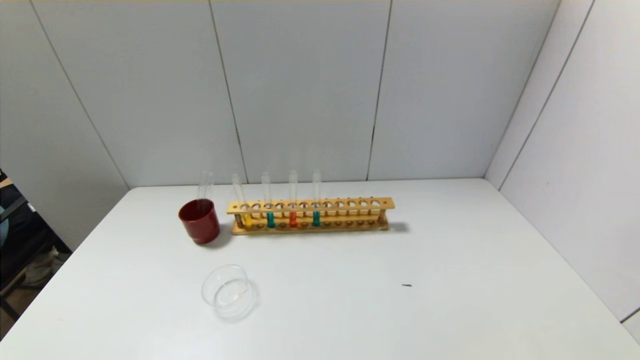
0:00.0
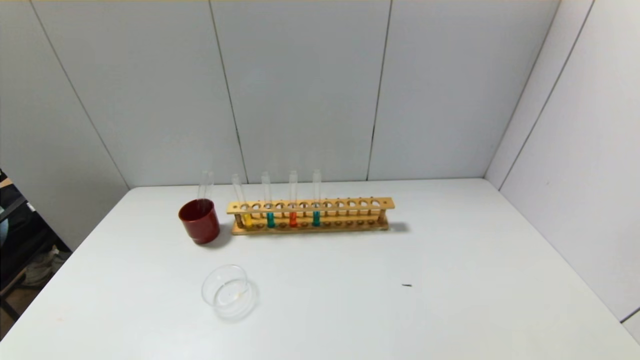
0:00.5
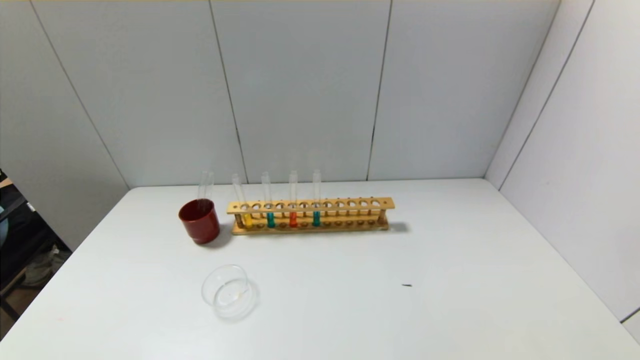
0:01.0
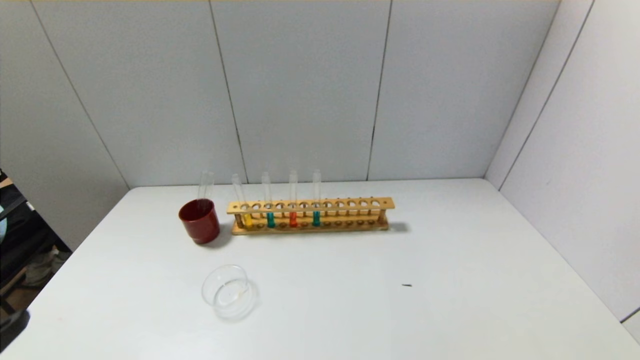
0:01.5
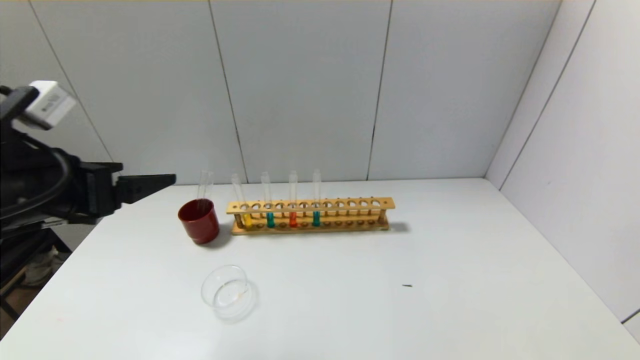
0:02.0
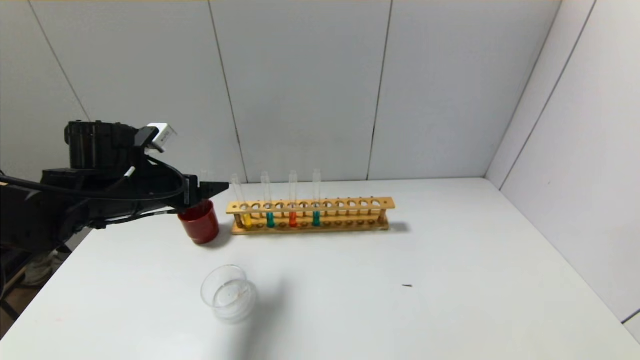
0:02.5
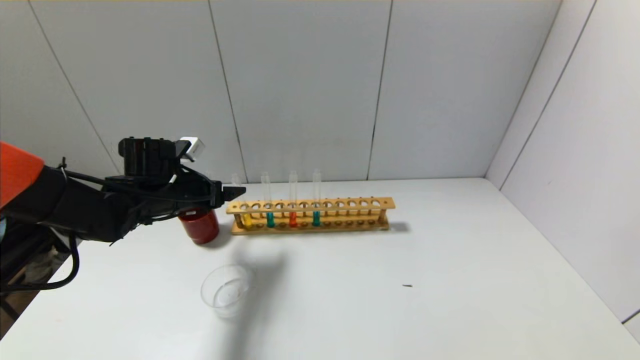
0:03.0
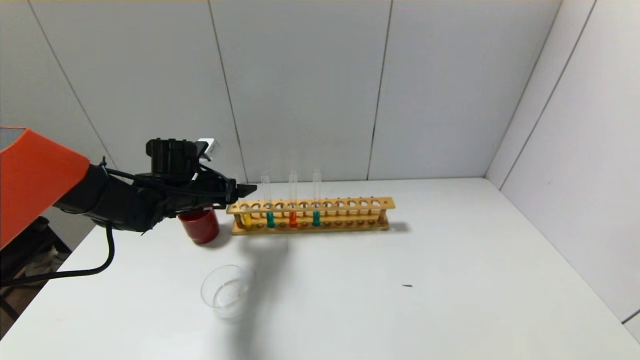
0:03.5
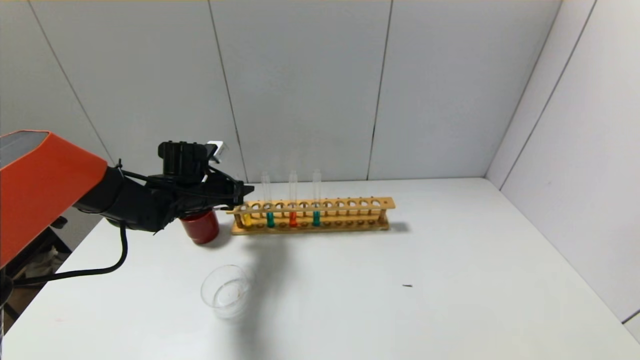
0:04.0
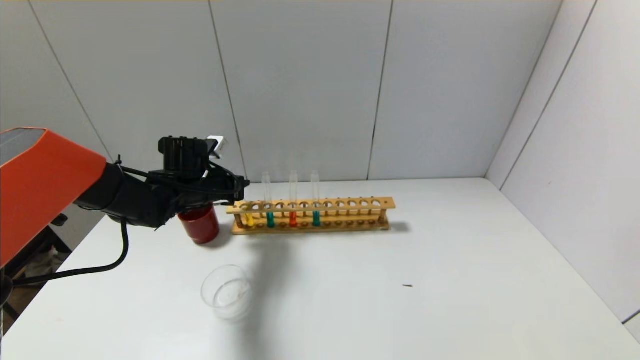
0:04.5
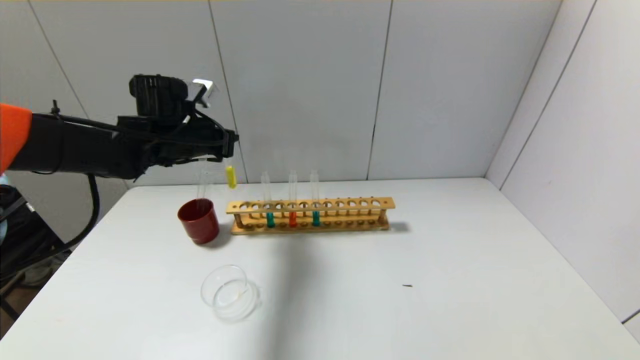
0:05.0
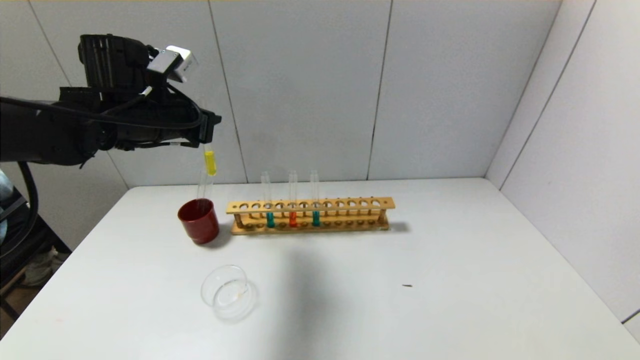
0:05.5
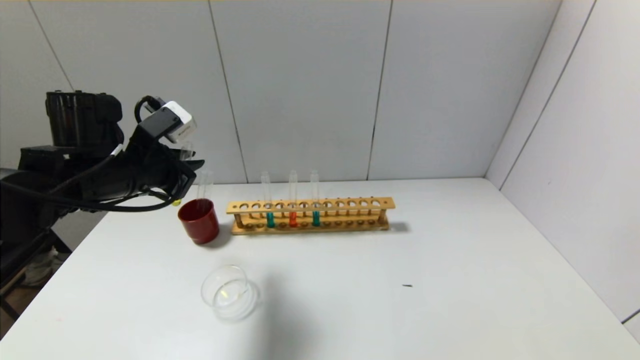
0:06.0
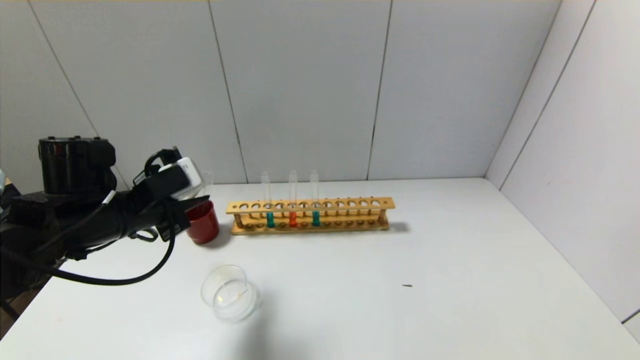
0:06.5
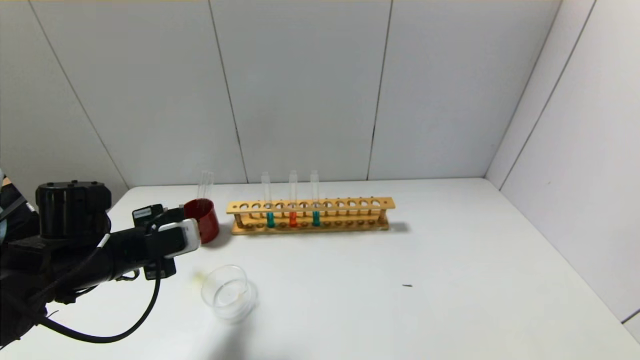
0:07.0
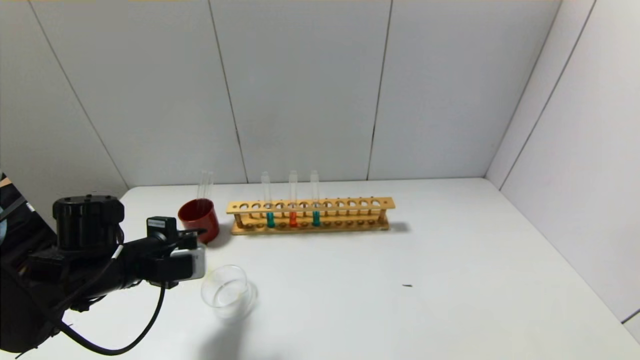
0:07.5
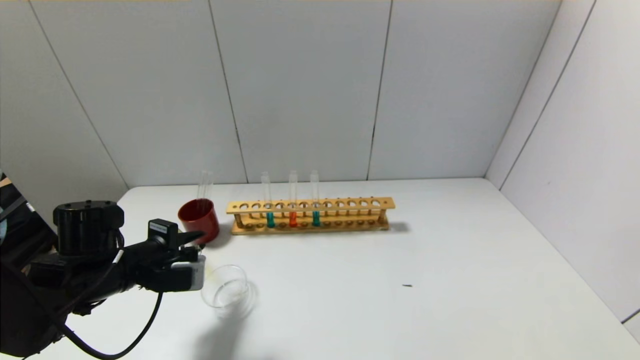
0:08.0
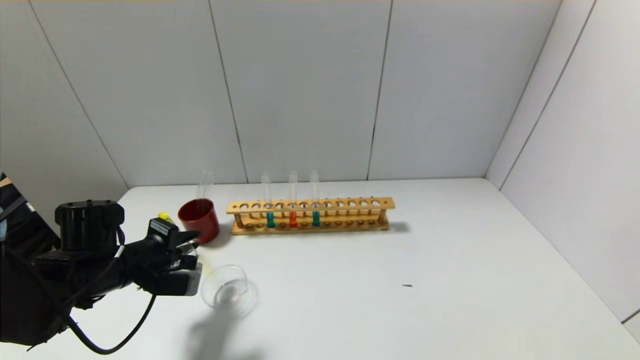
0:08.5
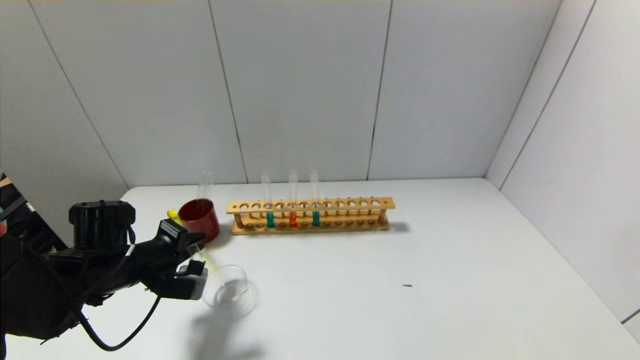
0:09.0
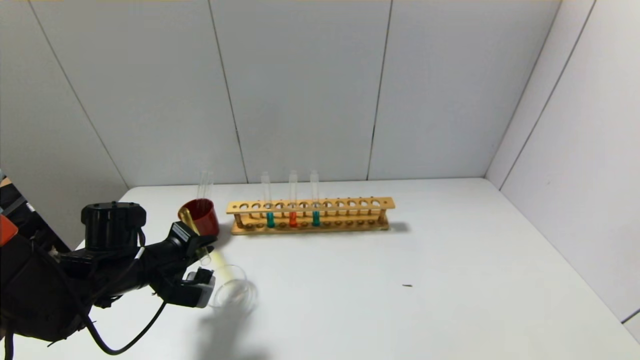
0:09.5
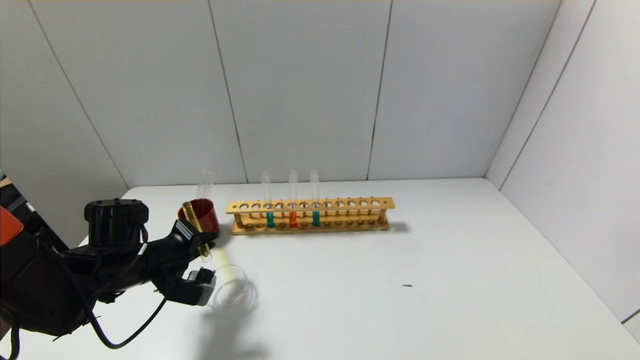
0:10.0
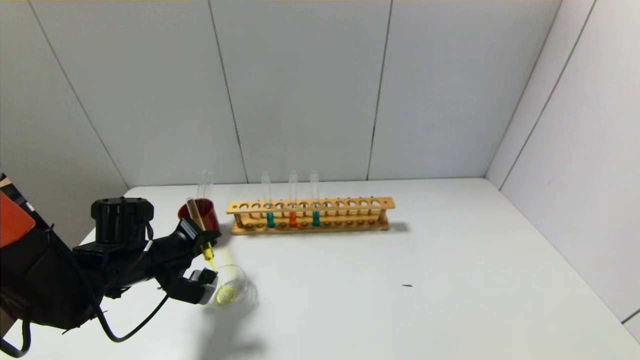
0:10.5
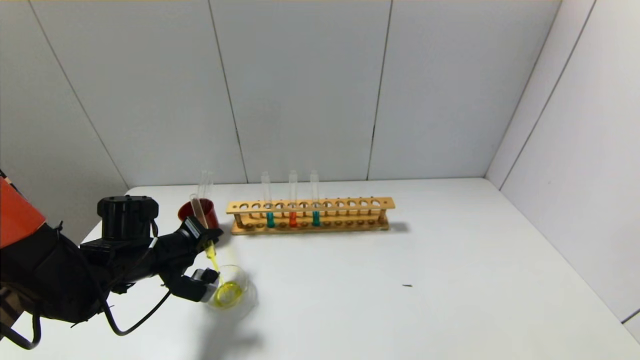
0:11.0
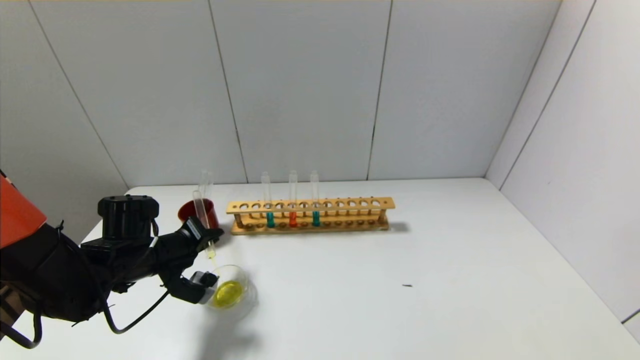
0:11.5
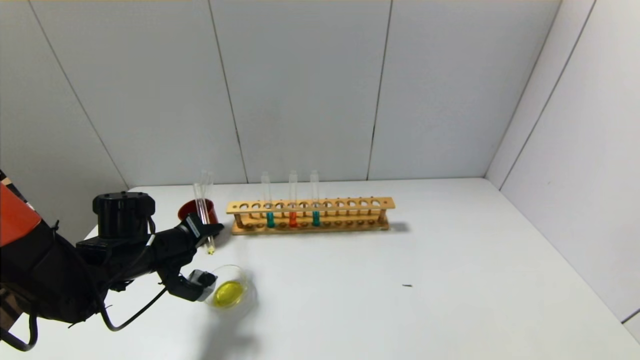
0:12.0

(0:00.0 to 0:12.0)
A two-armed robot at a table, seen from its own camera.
Step, 0:00.0 - 0:04.0: Grasp the yellow reagent with the left gripper.
0:00.0 - 0:02.0: The left gripper travels forward and upward by about 30 cm.
0:02.0 - 0:04.0: The left gripper travels forward and downward by some 25 cm, and closes.
0:04.0 - 0:06.0: The left gripper shifts about 15 cm backward and upward.
0:06.0 - 0:08.0: The left gripper travels downward by roughly 10 cm.
0:10.0 - 0:12.0: The grippers make only small movements.

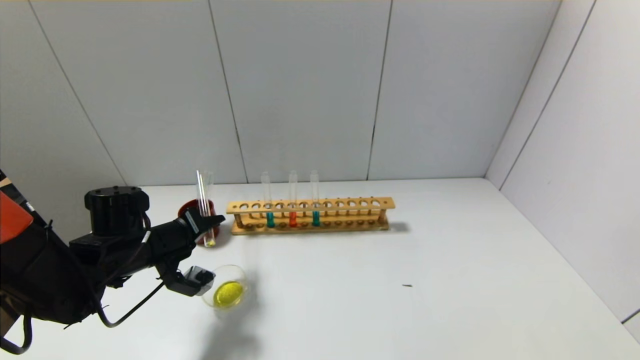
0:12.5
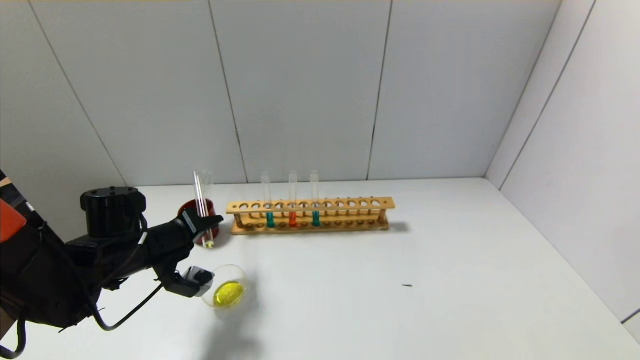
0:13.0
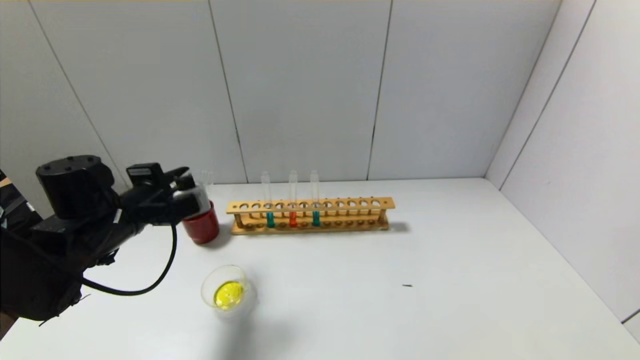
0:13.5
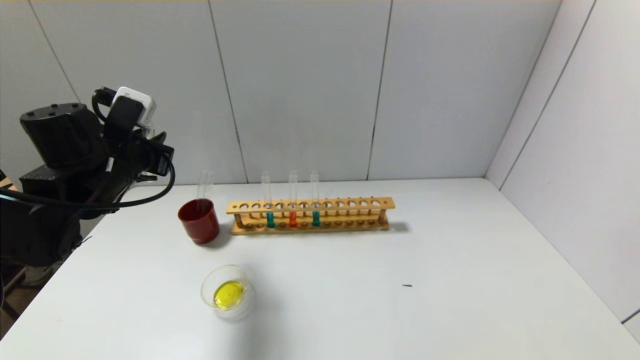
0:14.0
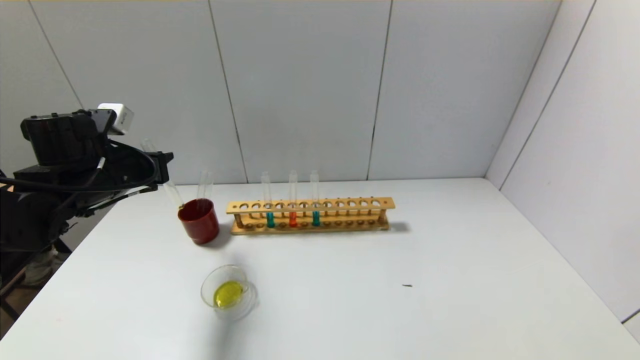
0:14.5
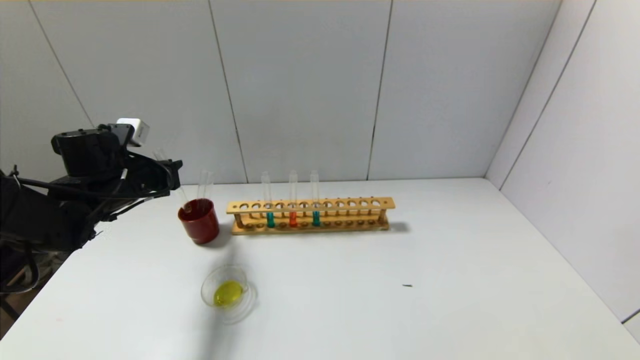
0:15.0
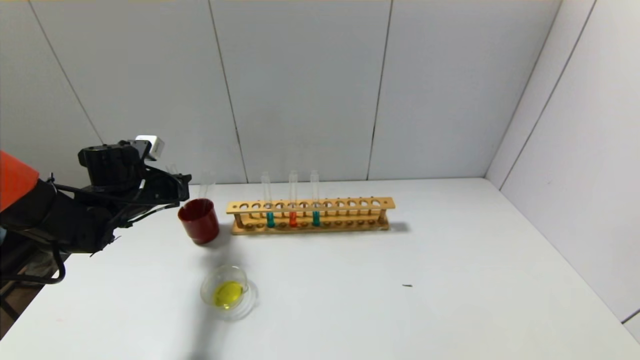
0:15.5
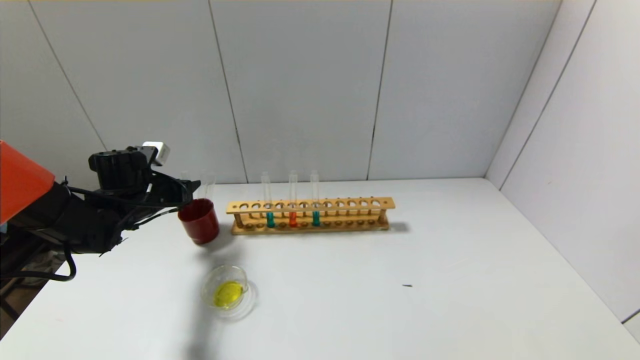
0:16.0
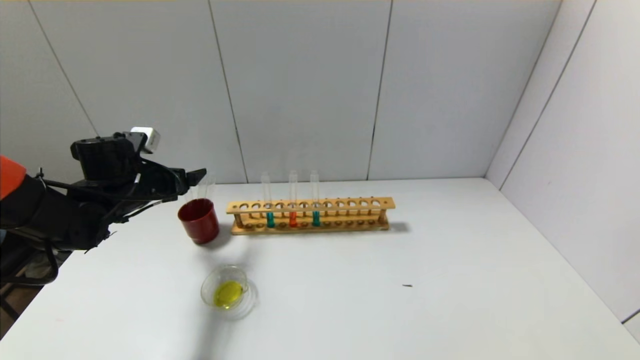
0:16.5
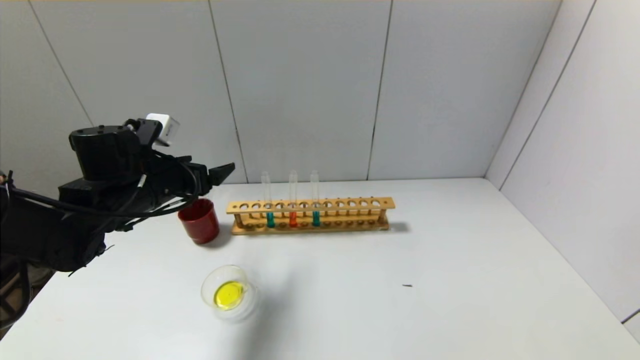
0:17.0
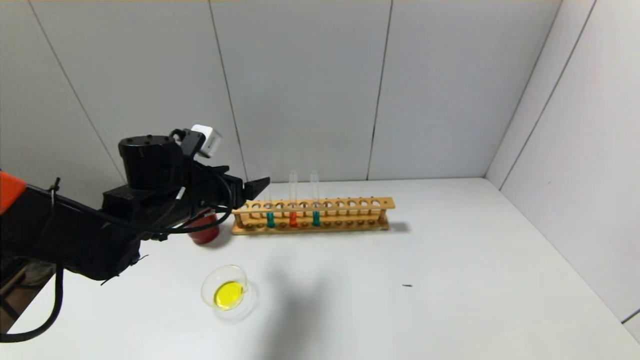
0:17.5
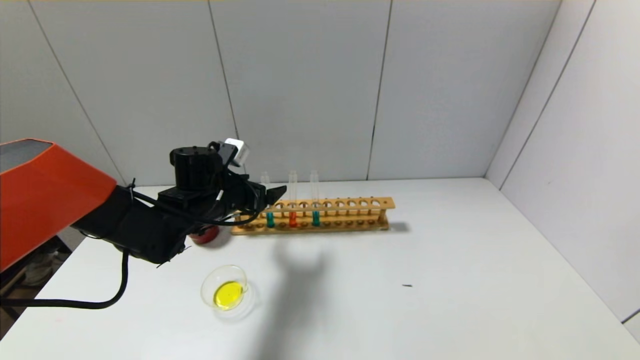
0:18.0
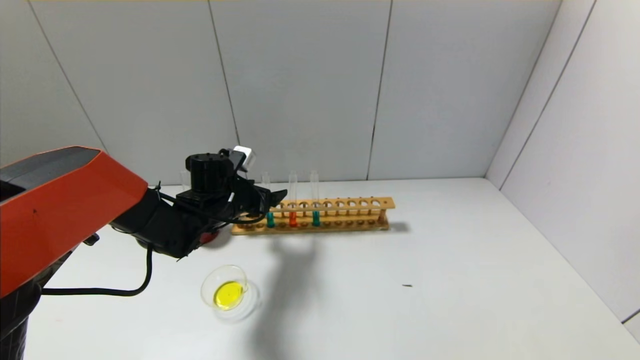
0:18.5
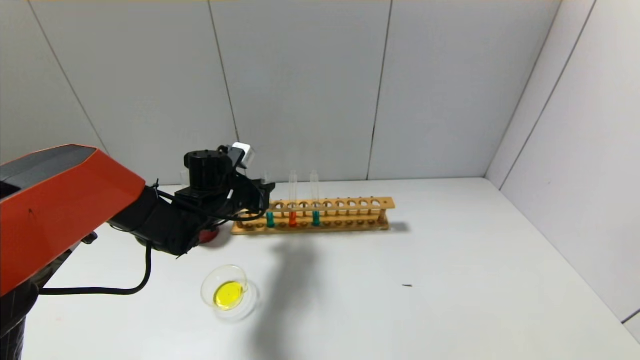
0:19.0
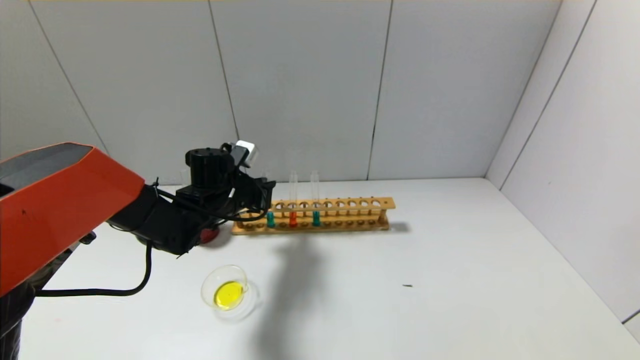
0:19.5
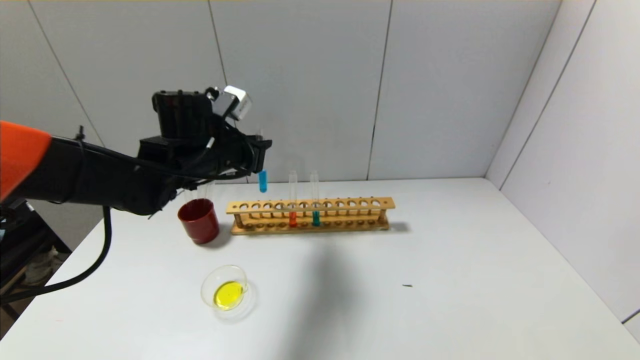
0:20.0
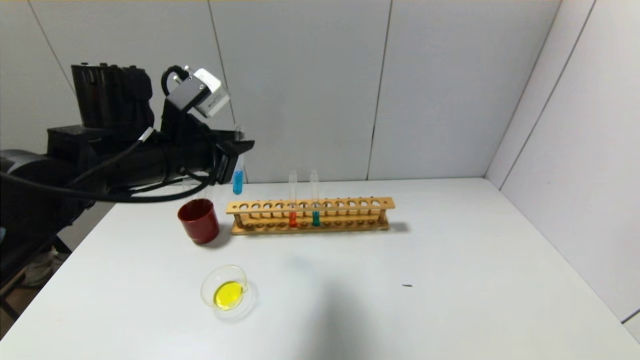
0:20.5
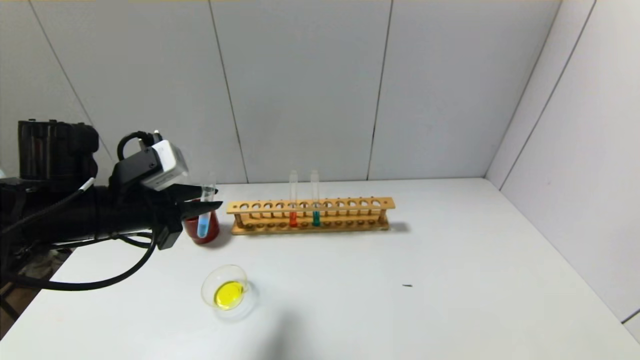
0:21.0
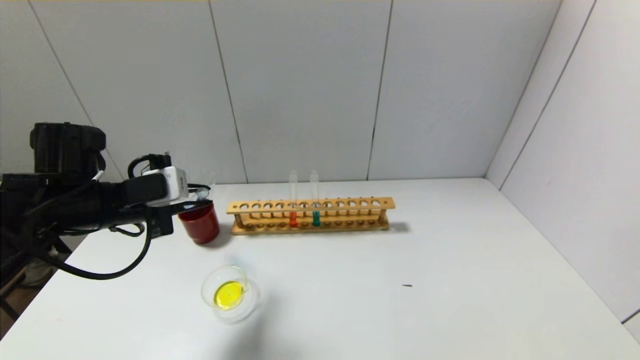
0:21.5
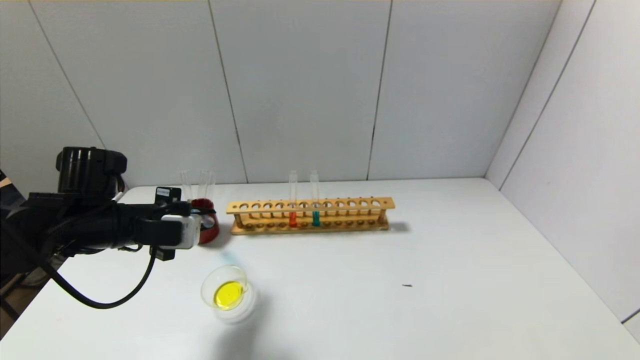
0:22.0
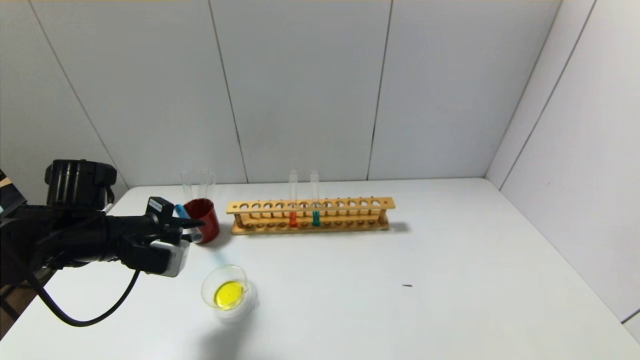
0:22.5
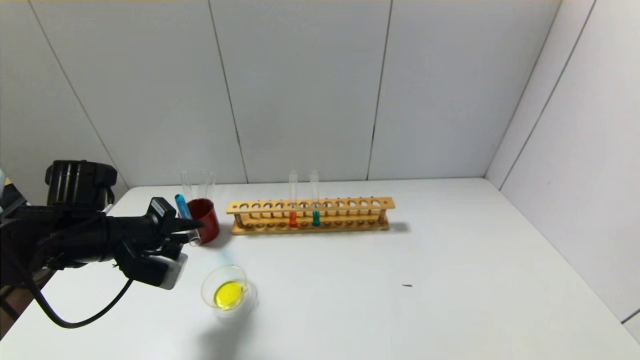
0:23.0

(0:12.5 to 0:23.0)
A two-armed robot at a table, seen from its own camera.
Step, 0:13.5 - 0:16.0: Place the test tube into the brown cup with the left gripper.
Step, 0:16.5 - 0:19.0: Grasp the blue reagent with the left gripper.
0:12.5 - 0:14.5: The left gripper moves upward, about 10 cm.
0:14.5 - 0:16.5: The left gripper opens its fingers.
0:16.5 - 0:19.0: The left gripper shifts some 15 cm to the right, and closes up.
0:19.0 - 0:21.0: The left gripper moves backward, upward and to the left, approximately 20 cm.
0:21.0 - 0:23.0: The left gripper travels downward by approximately 5 cm.
